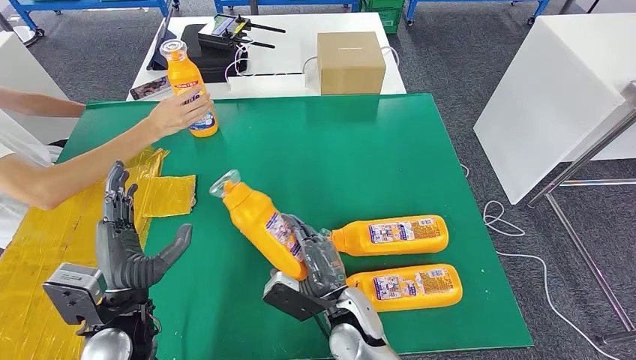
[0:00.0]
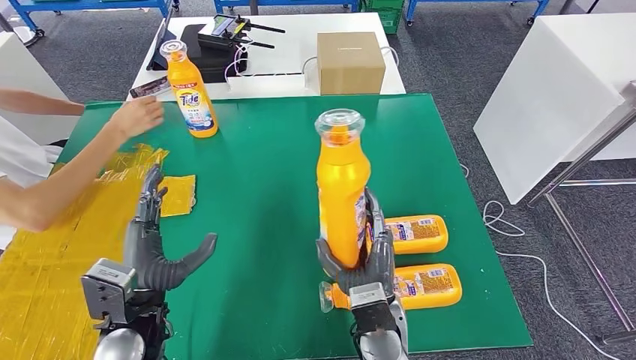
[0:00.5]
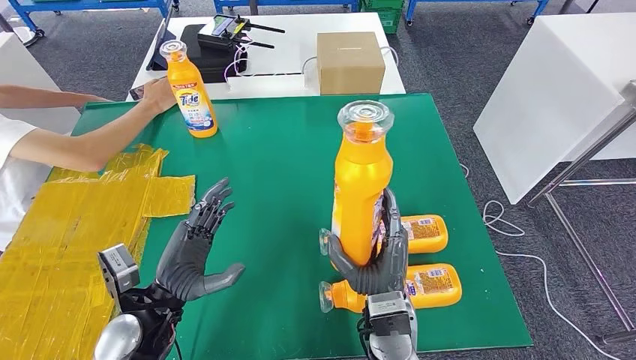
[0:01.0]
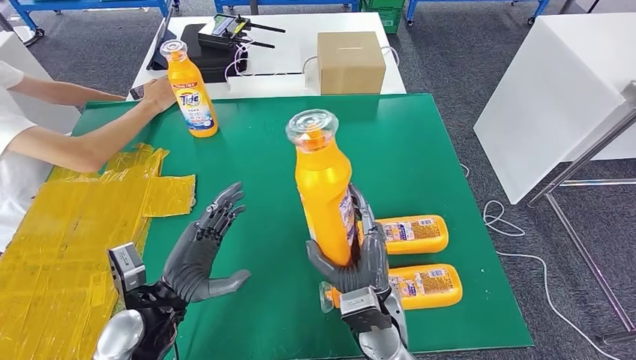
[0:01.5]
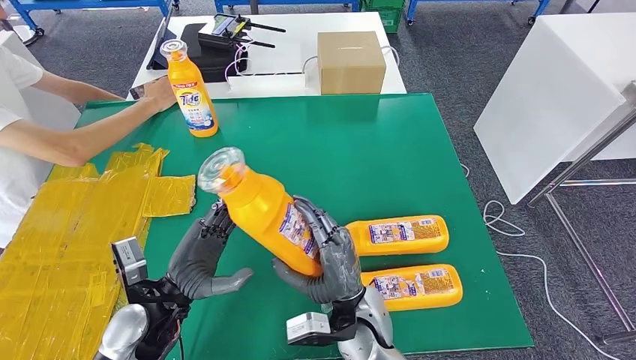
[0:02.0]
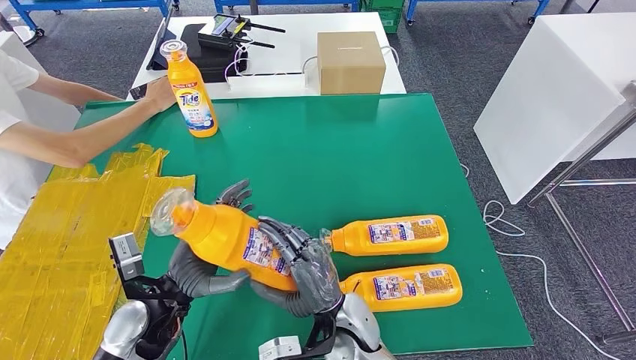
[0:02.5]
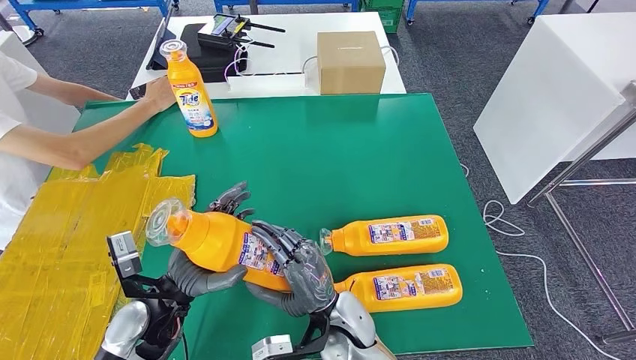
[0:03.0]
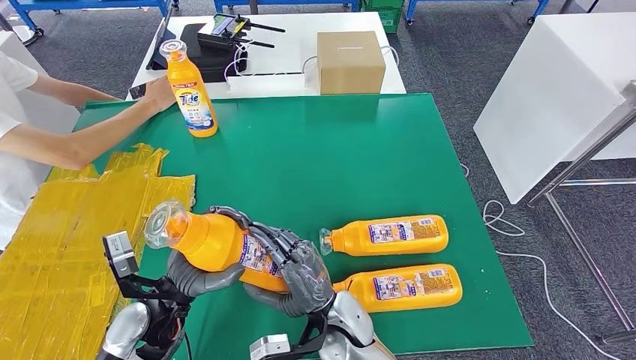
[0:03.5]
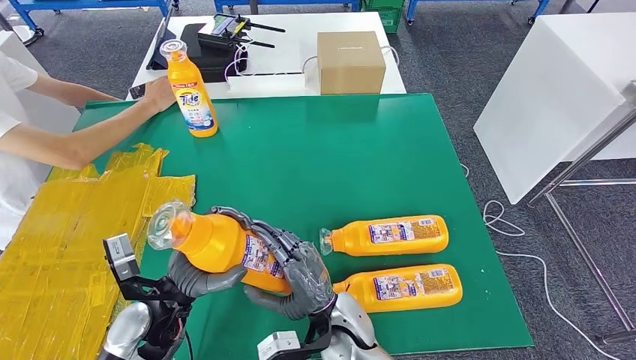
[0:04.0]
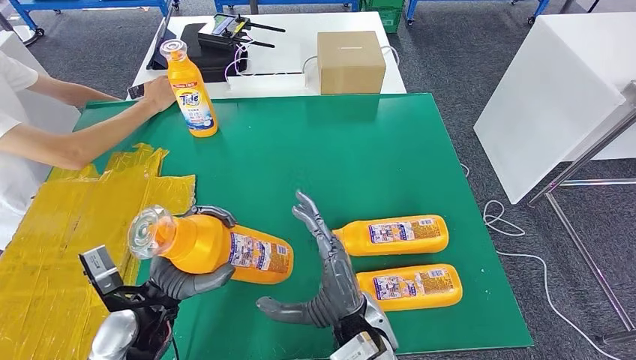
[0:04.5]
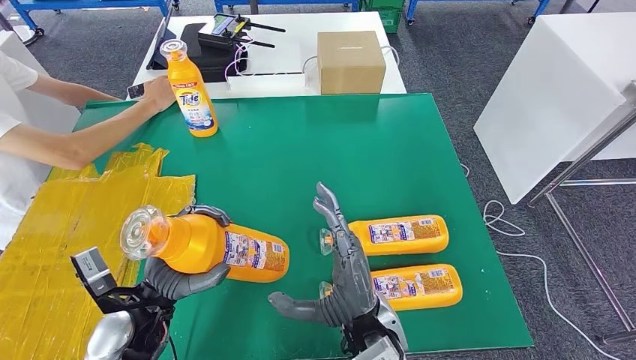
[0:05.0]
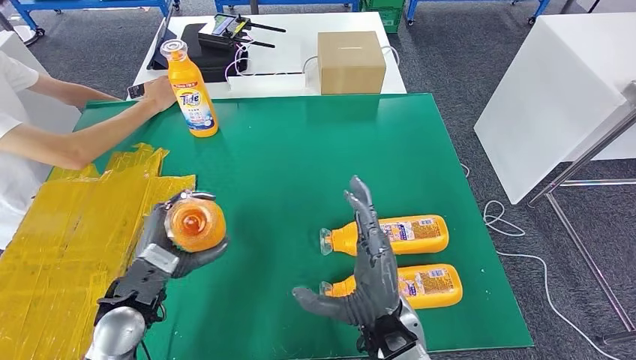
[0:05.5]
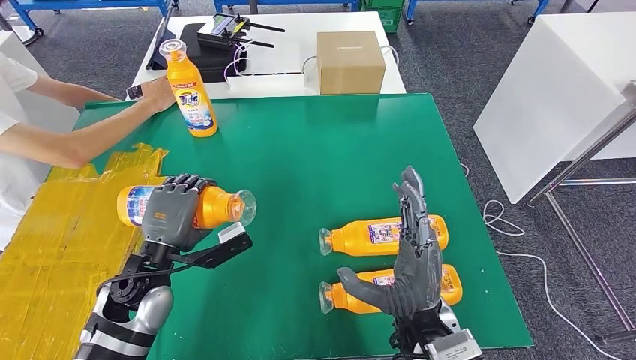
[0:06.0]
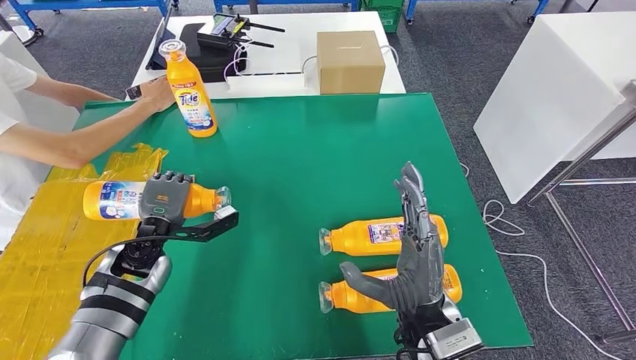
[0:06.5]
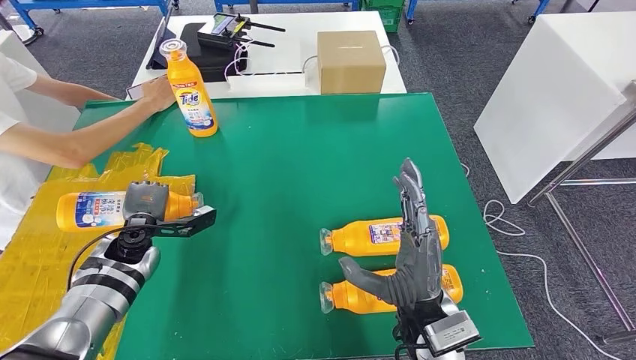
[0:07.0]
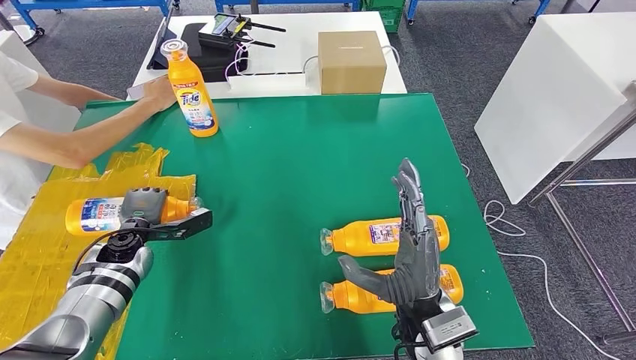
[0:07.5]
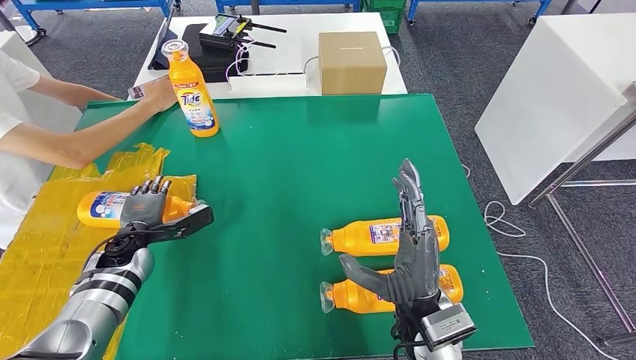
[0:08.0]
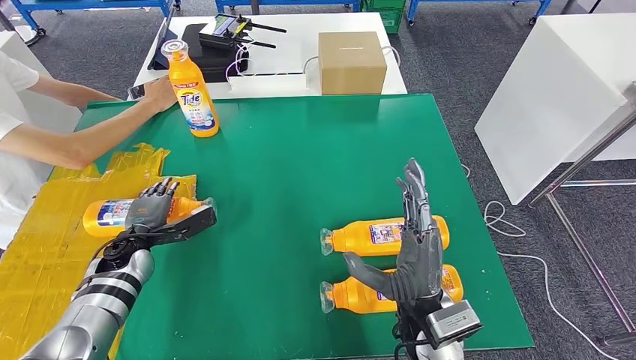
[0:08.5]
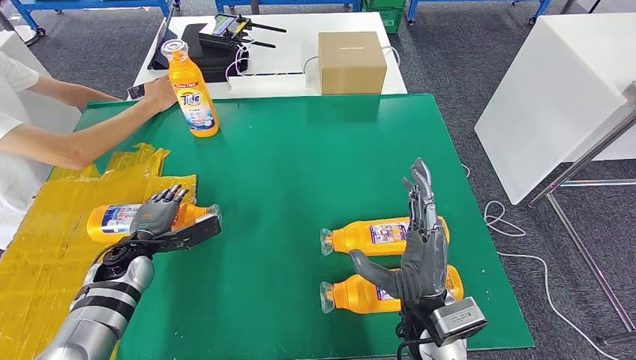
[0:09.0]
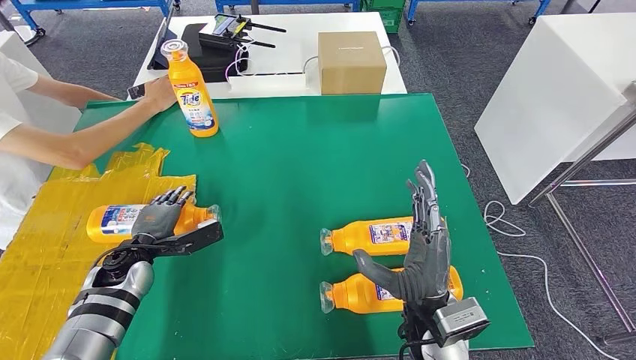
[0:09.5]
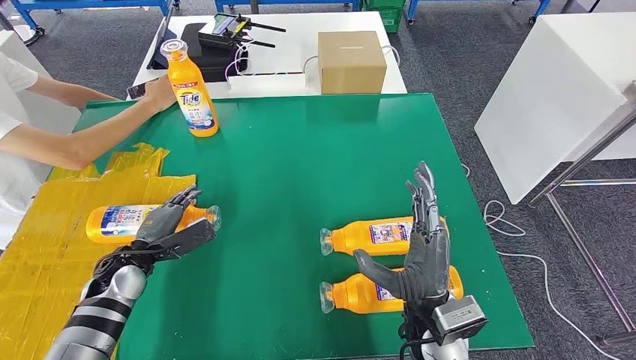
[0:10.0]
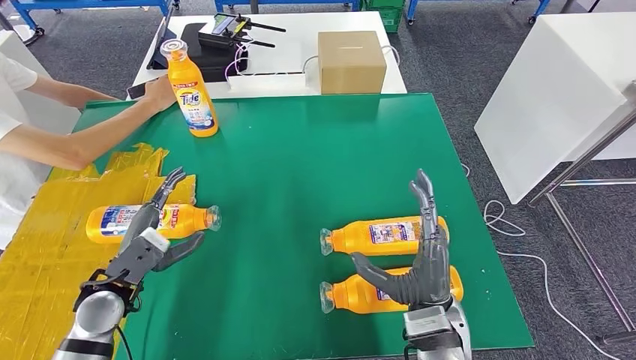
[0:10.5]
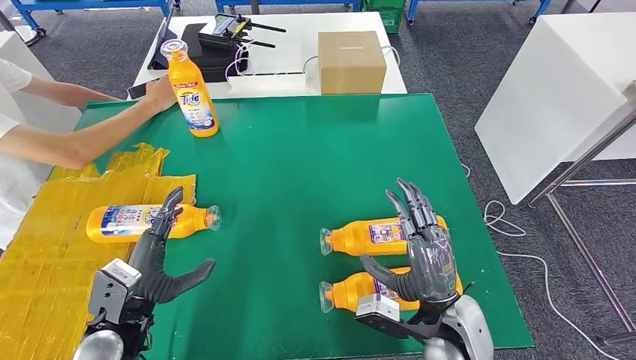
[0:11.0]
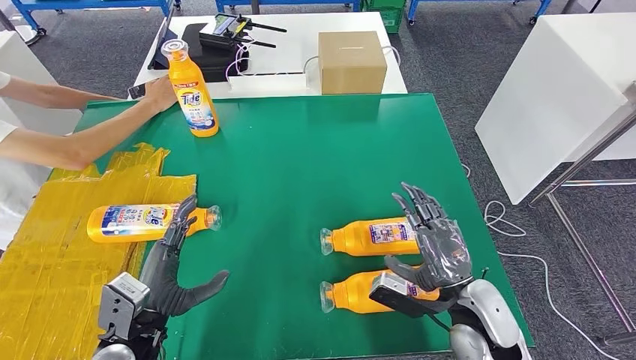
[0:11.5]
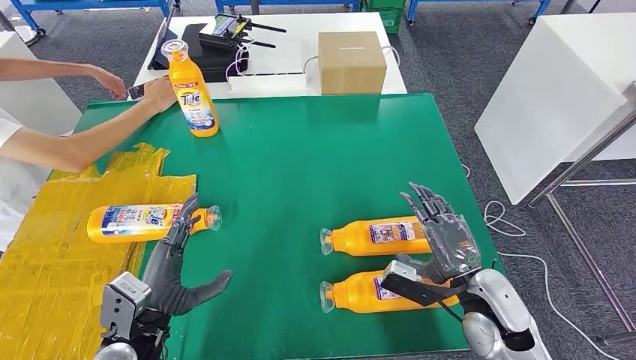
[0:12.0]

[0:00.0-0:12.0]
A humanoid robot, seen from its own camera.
Step, 0:02.5 to 0:07.5: Flip the fast-moving consumer goods bottle to the front side.
0:02.0 to 0:04.0: The hands move only a little.
0:04.0 to 0:06.0: The left hand moves approximately 5 cm, while the right hand shifts about 15 cm to the right and upward.
0:06.0 to 0:08.0: The left hand moves to the left, forward and downward, some 15 cm.
0:10.0 to 0:12.0: The left hand moves backward and to the right, roughly 15 cm. The right hand moves to the right, about 10 cm.

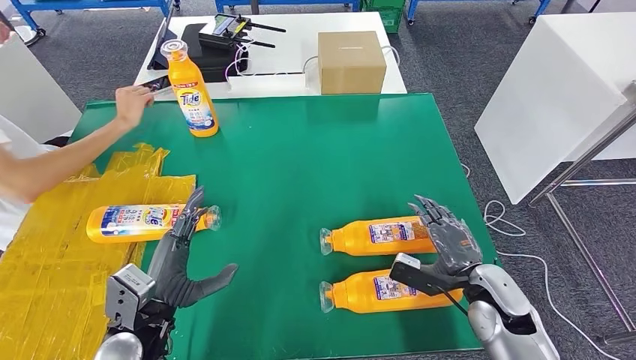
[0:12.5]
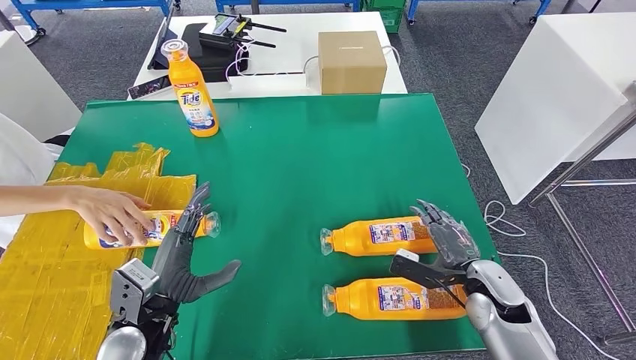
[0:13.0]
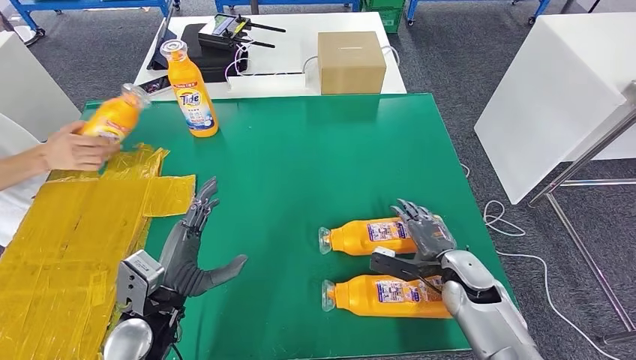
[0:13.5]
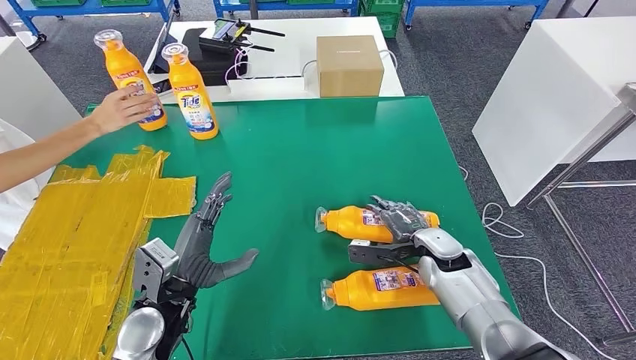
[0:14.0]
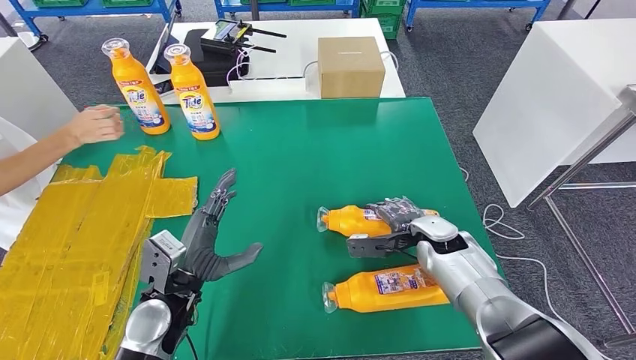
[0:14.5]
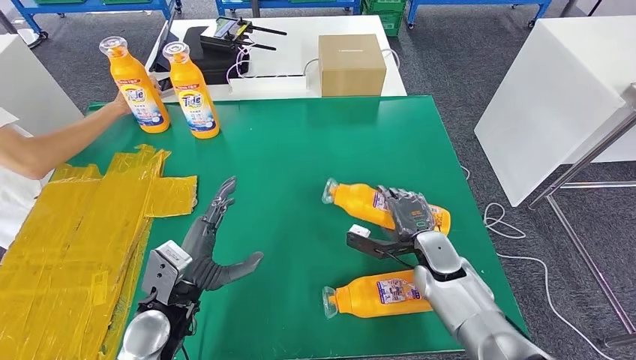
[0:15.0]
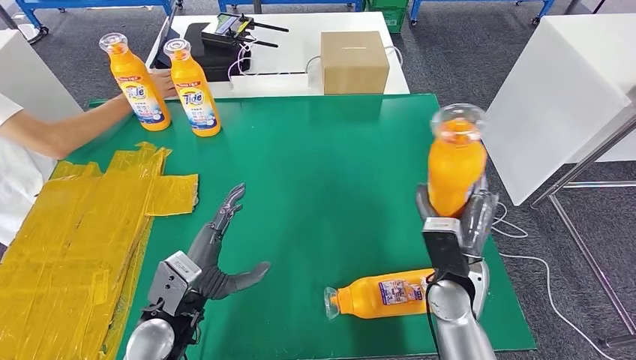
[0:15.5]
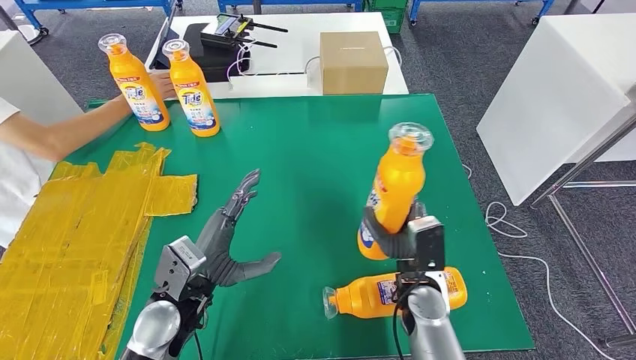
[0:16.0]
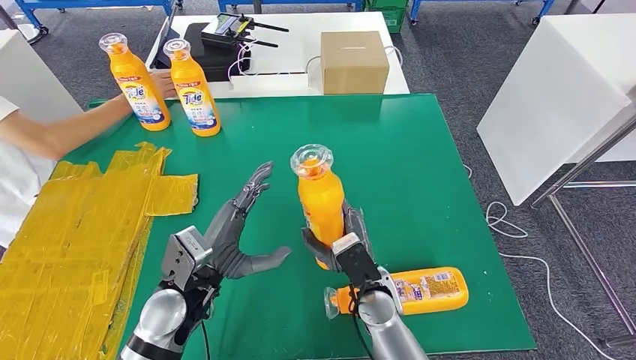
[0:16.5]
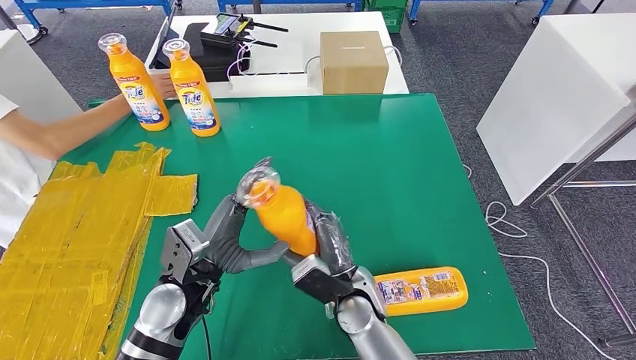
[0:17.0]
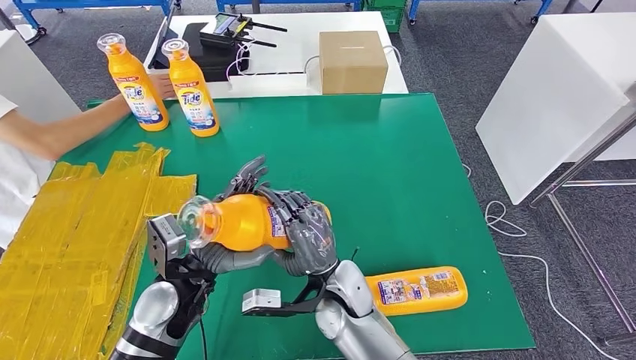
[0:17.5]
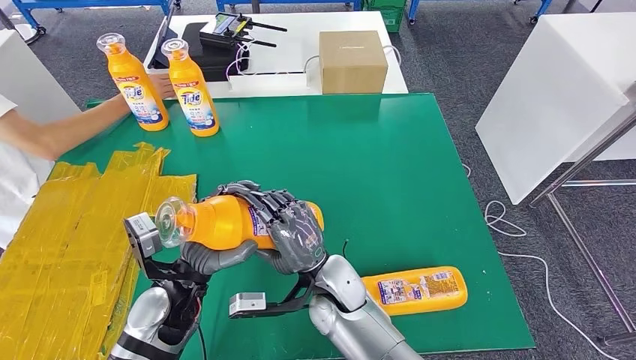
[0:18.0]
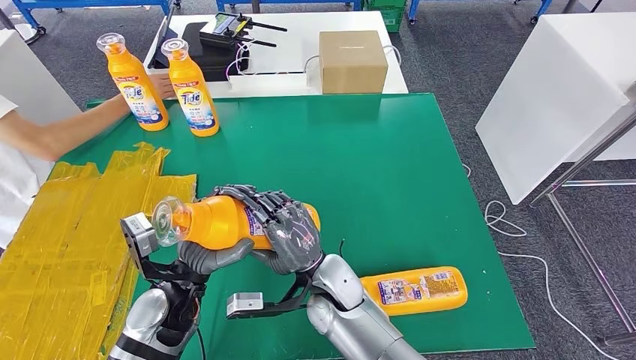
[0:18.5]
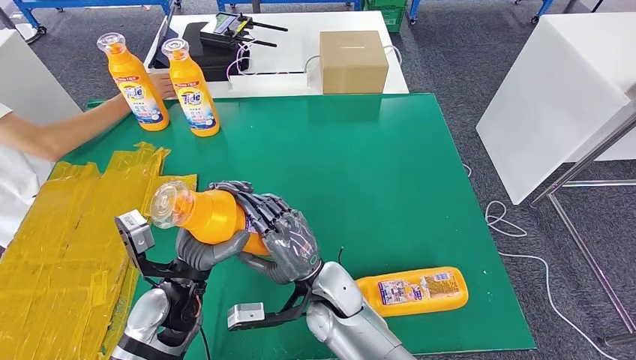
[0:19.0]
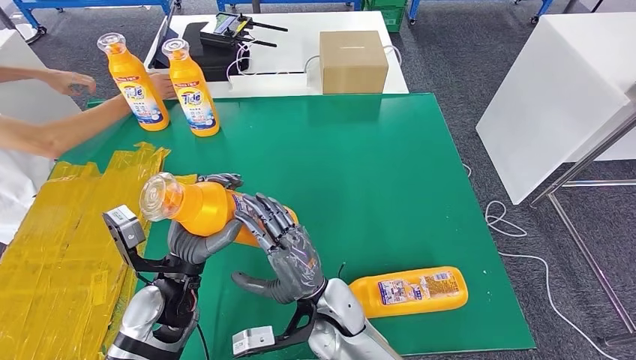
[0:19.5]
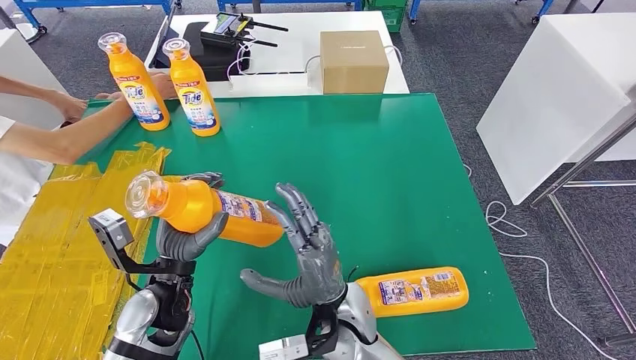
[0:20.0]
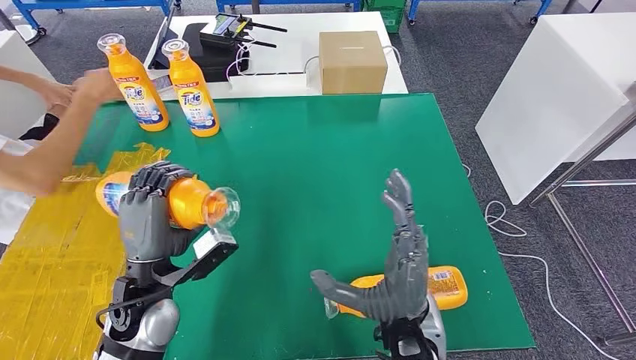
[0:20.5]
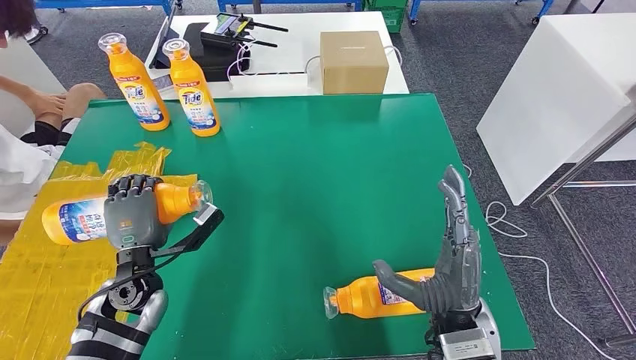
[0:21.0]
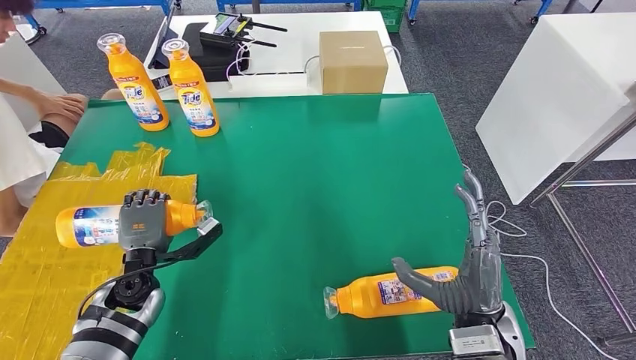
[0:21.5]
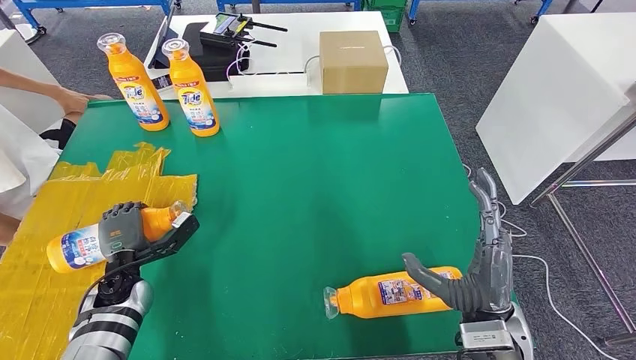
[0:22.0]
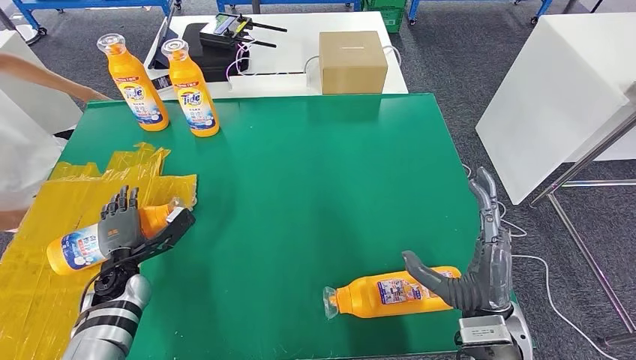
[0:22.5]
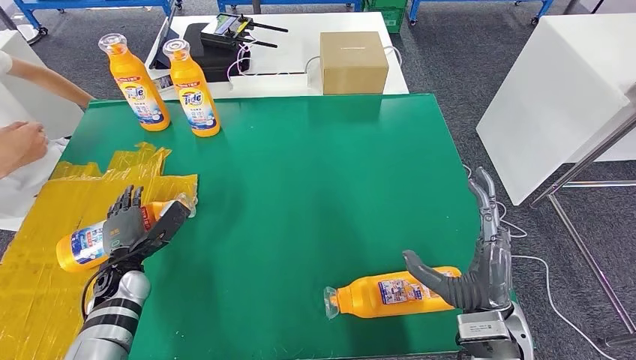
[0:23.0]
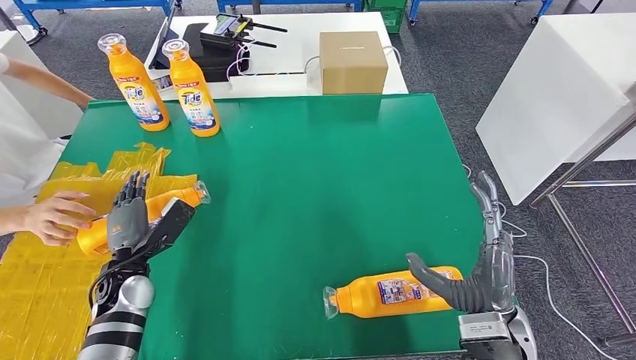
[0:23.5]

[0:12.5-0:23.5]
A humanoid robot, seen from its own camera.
Step, 0:12.5 to 0:18.0: Pick up the fast-moving consumer goods bottle from the table.
Step, 0:18.5 to 0:22.5: Flip the fast-moving consumer goods bottle to the front side.
0:16.0 to 0:18.0: The right hand heads to the left, covering roughly 15 cm.
0:18.0 to 0:20.0: The right hand changes place by roughly 5 cm.
